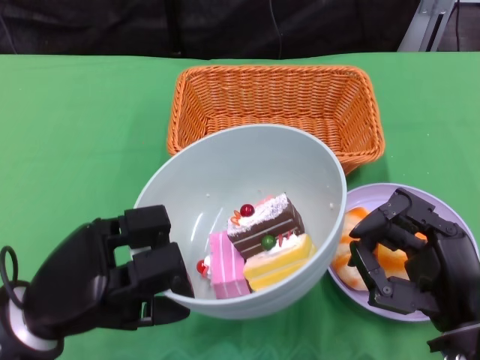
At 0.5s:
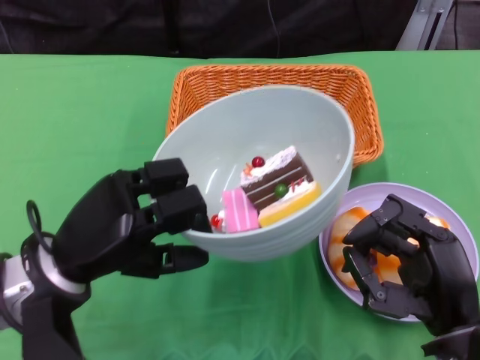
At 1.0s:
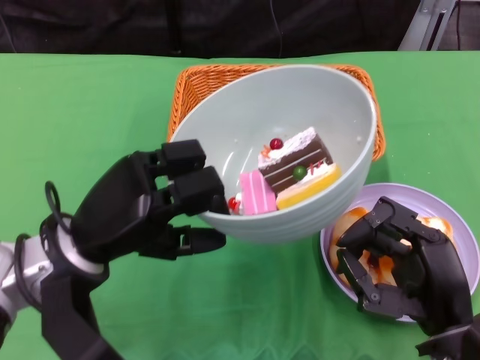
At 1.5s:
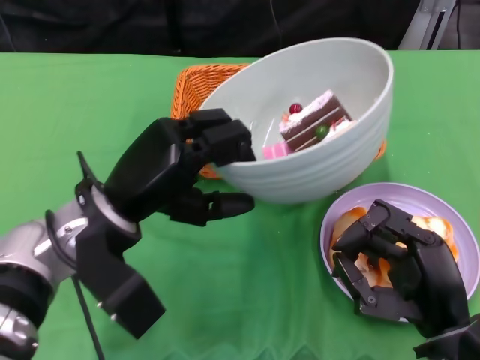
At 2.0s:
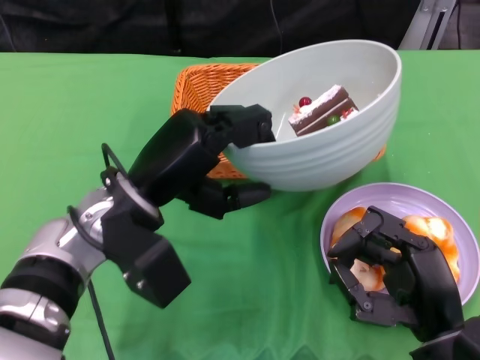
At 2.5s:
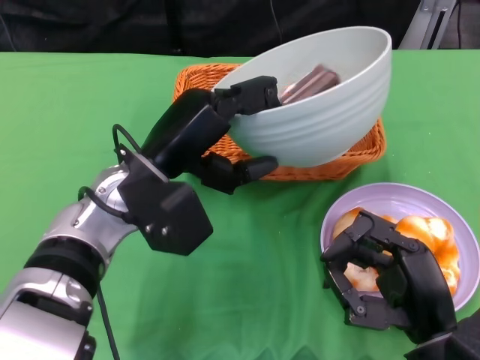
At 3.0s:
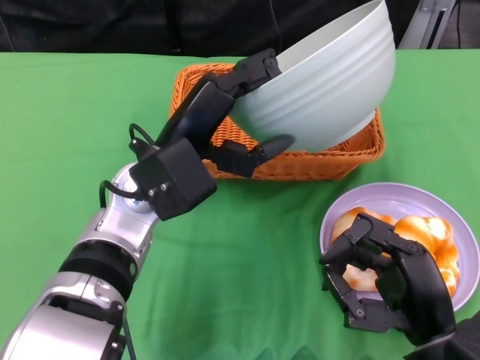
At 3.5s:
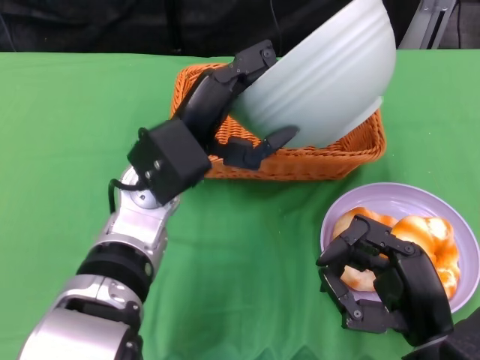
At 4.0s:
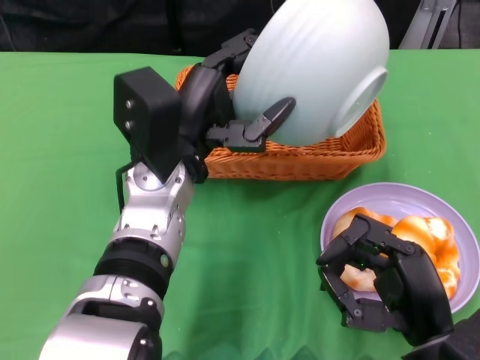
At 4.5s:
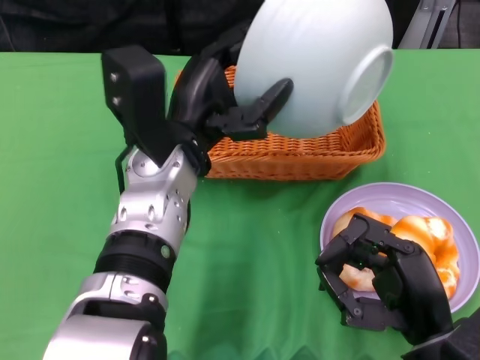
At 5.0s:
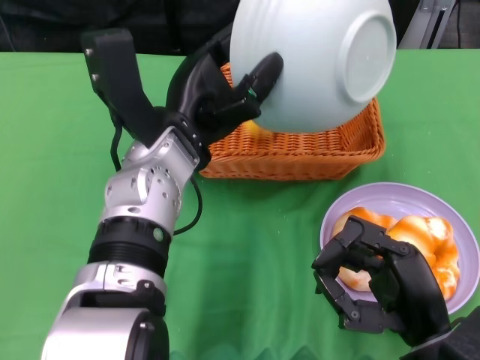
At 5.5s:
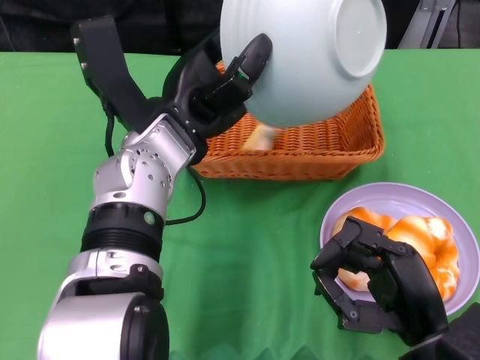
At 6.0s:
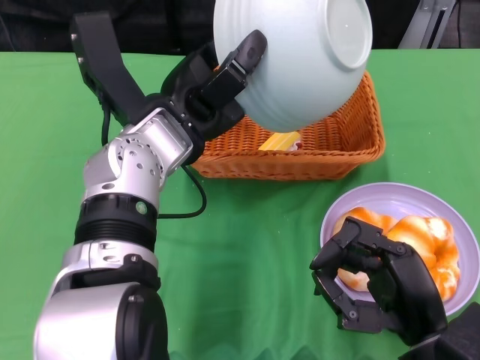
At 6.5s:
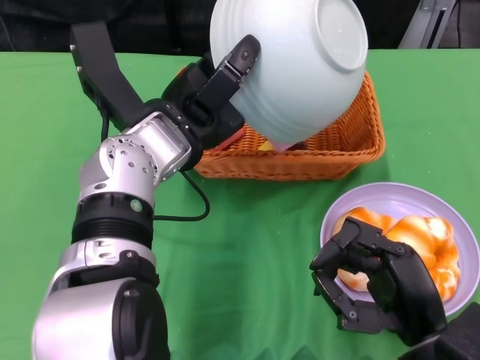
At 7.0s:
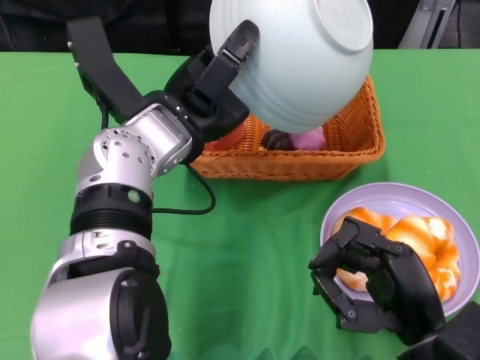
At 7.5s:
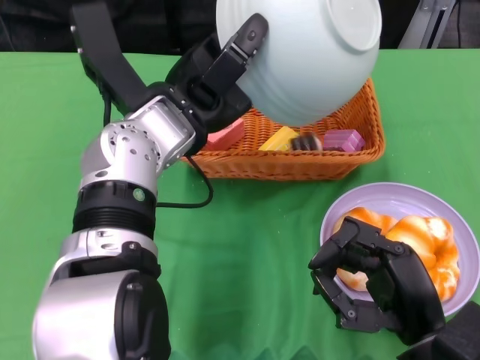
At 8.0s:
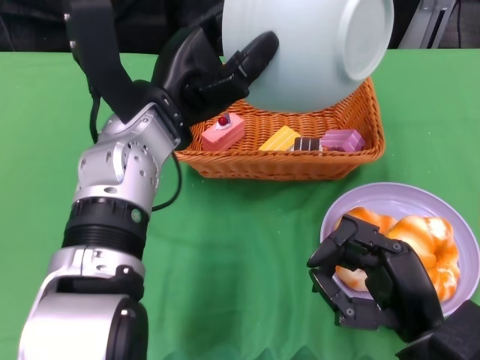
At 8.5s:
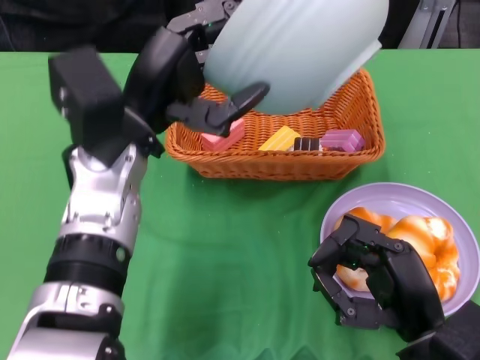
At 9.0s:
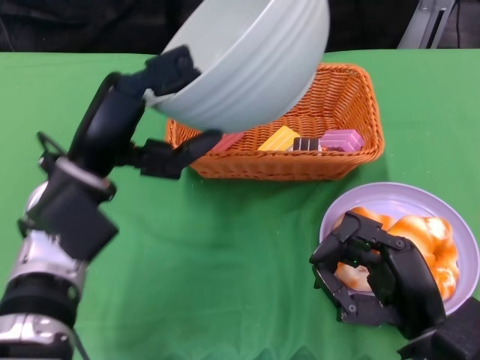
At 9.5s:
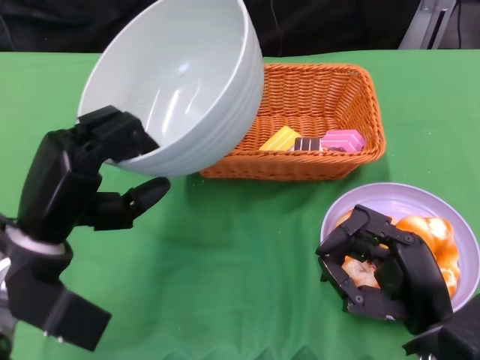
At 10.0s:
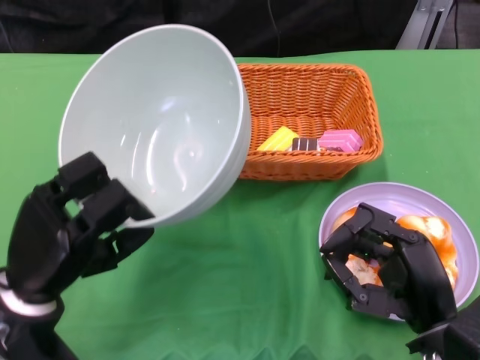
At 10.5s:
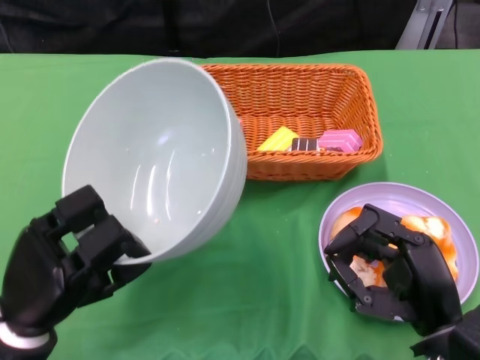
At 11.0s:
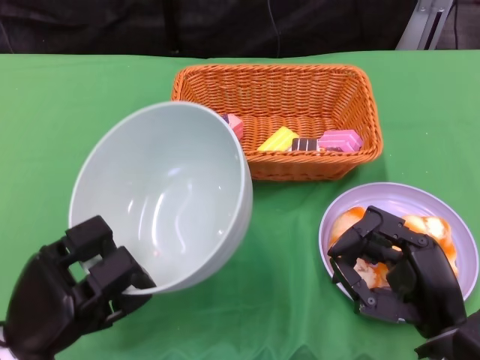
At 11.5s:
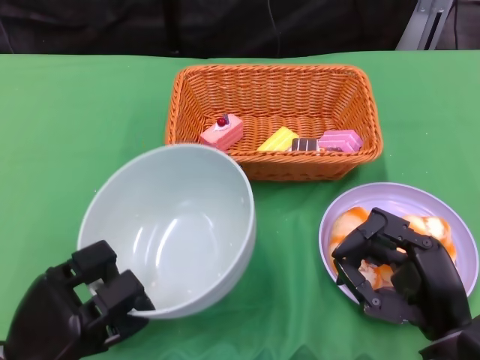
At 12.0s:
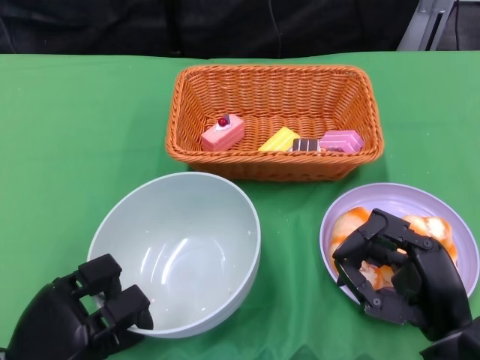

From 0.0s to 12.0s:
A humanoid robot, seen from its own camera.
Step, from 0.0s to 7.5s: Pour the cake into the basket with the left gripper.
From 0.0s to 2.0s: The left hand heads to the right and forward, covering approximately 10 cm.
From 2.0s to 4.0s: The left hand moves approximately 5 cm.
From 8.0s to 10.0s: The left hand moves downward, to the left and backward, some 20 cm.
From 10.0s to 12.0s: The left hand heads downward and backward, covering approximately 10 cm.

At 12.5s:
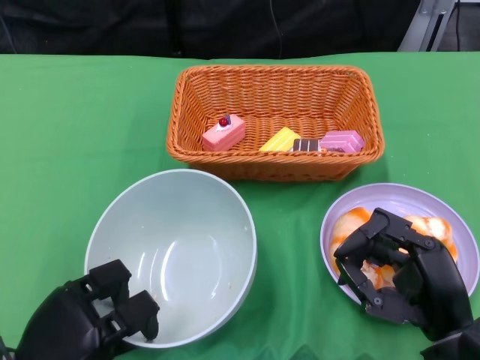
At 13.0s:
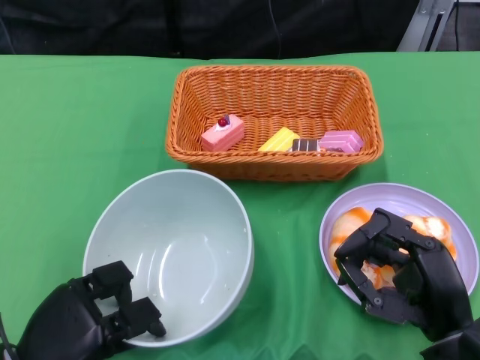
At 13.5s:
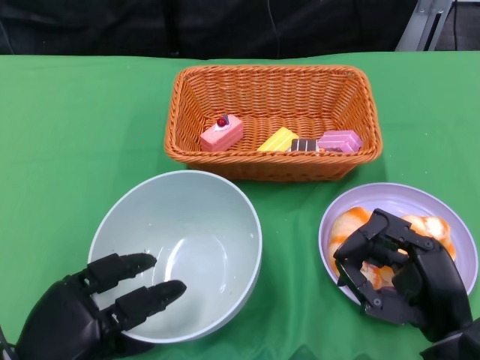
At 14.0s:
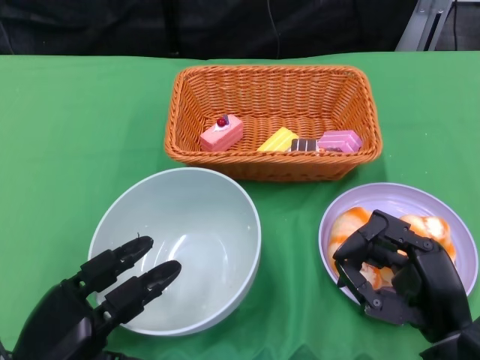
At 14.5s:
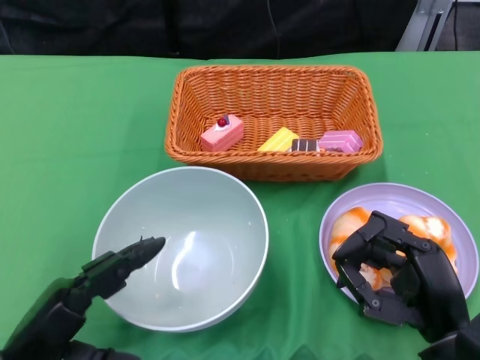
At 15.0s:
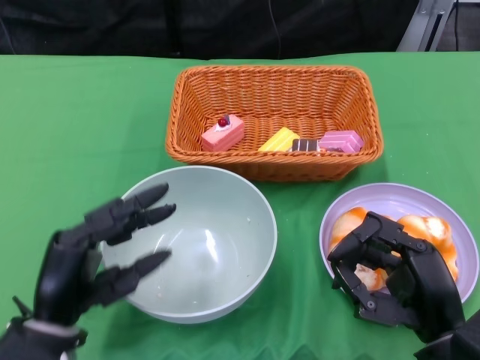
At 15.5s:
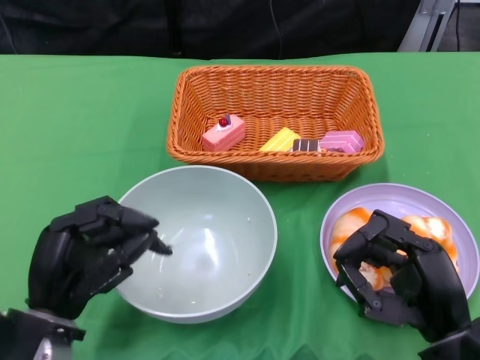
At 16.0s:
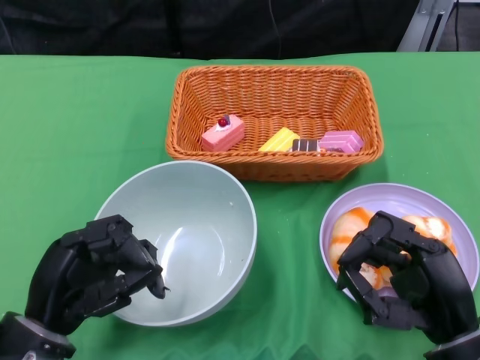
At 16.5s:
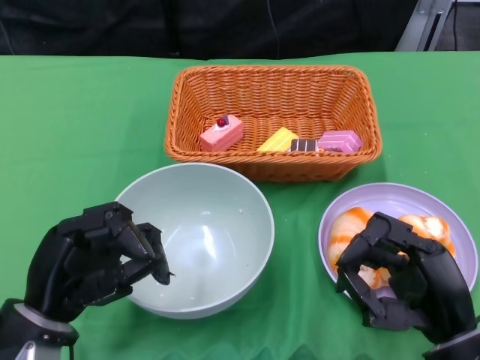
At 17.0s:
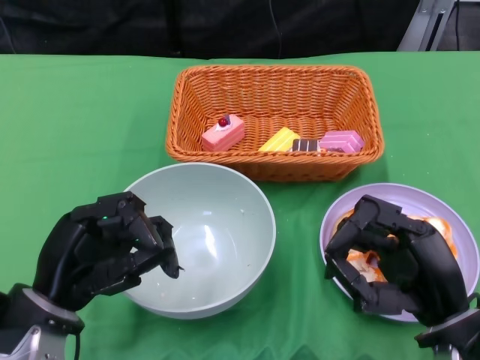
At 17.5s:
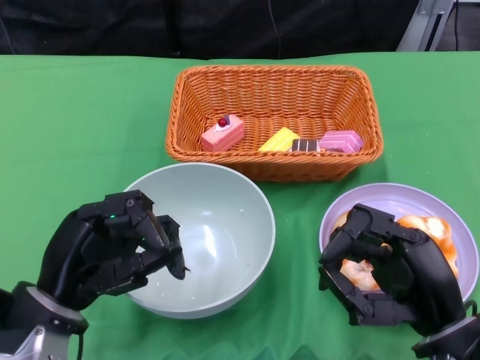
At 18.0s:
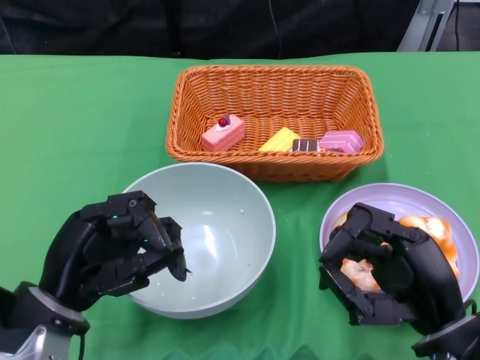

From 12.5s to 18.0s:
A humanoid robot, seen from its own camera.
Step, from 12.5s to 14.5s: Place the bowl on the table with the left gripper.
From 16.0s to 18.0s: The hands make only small movements.

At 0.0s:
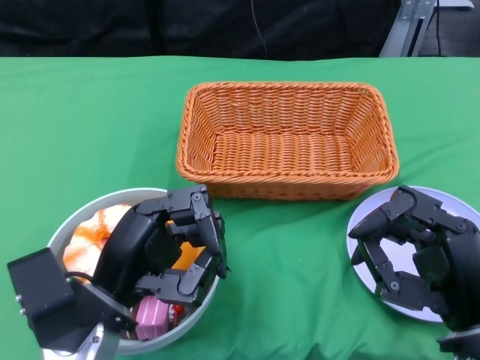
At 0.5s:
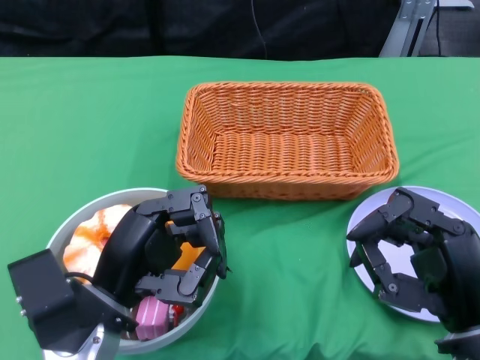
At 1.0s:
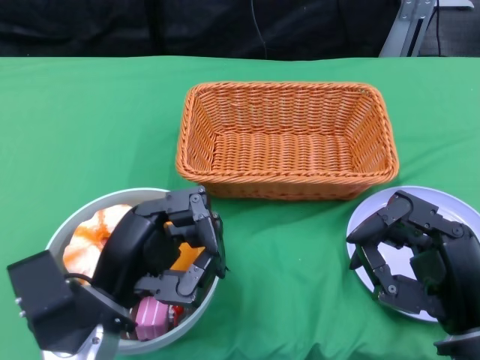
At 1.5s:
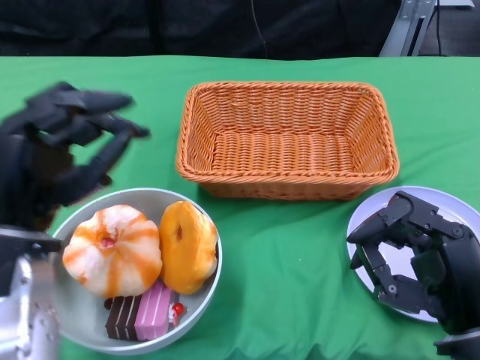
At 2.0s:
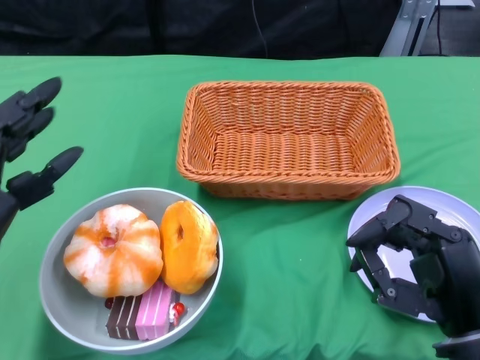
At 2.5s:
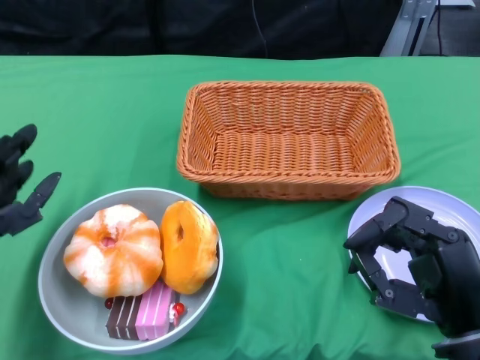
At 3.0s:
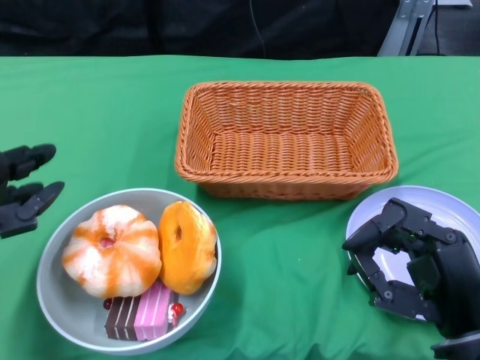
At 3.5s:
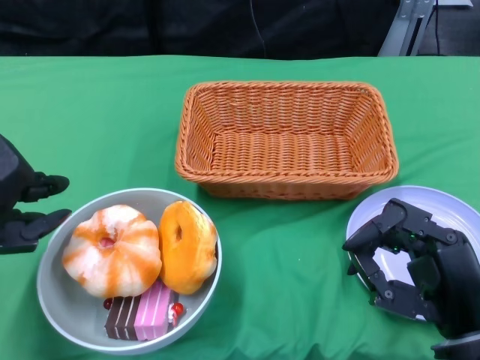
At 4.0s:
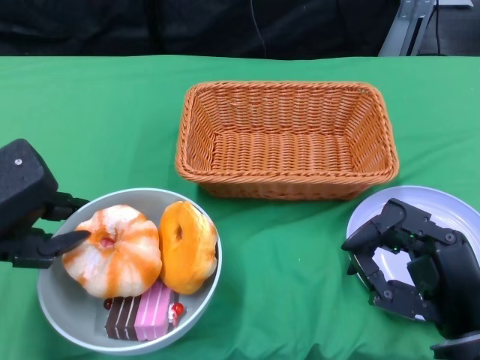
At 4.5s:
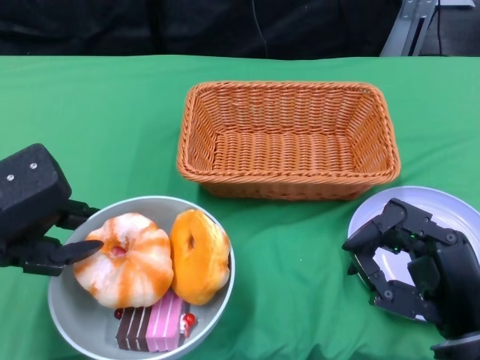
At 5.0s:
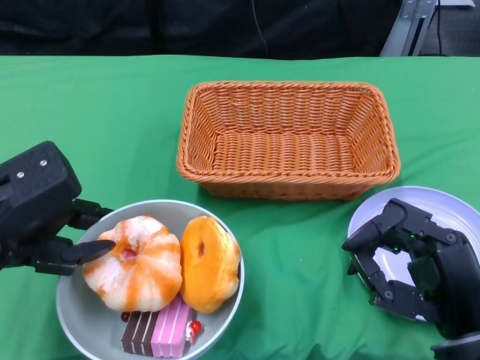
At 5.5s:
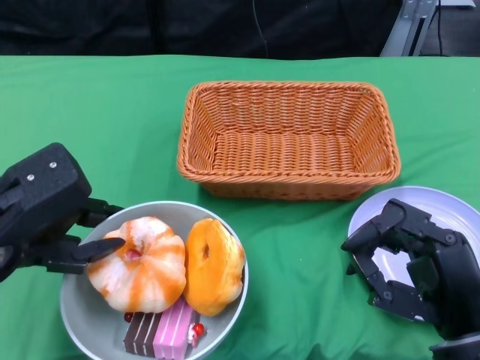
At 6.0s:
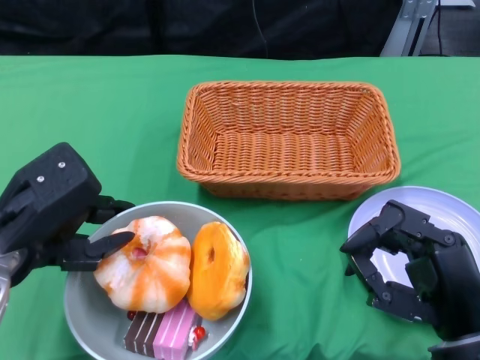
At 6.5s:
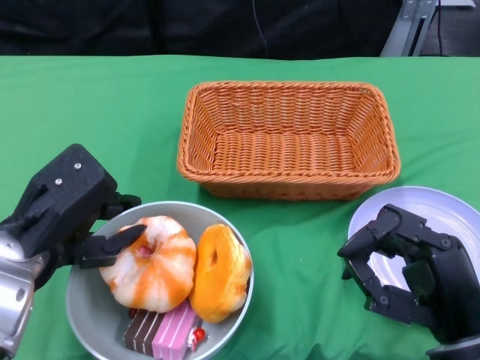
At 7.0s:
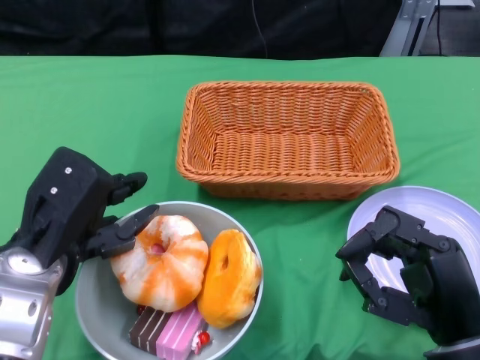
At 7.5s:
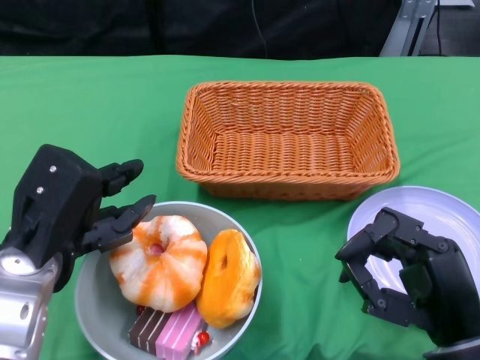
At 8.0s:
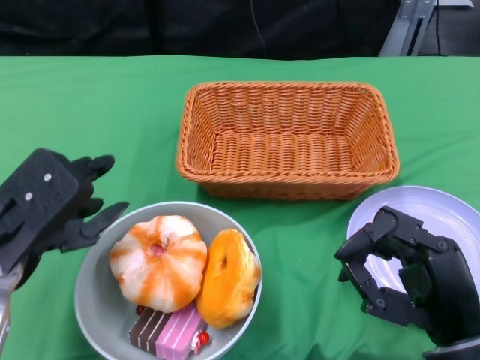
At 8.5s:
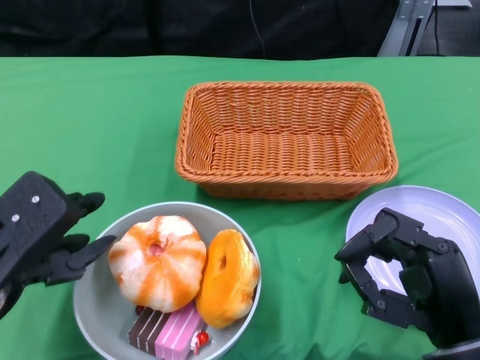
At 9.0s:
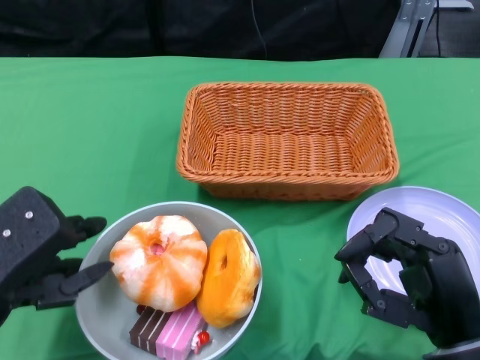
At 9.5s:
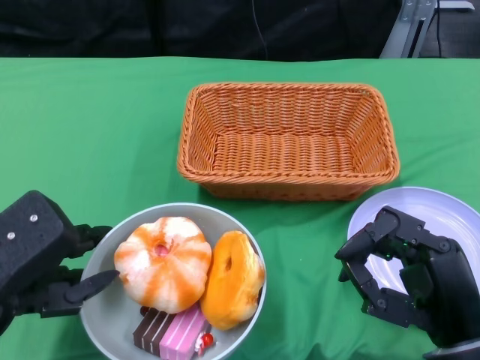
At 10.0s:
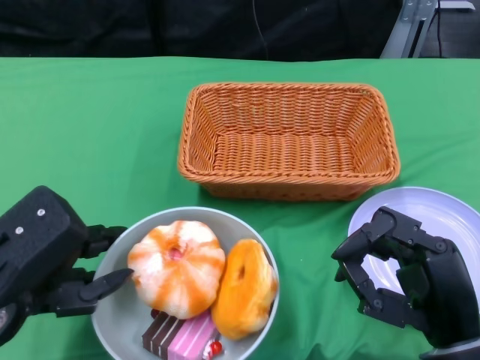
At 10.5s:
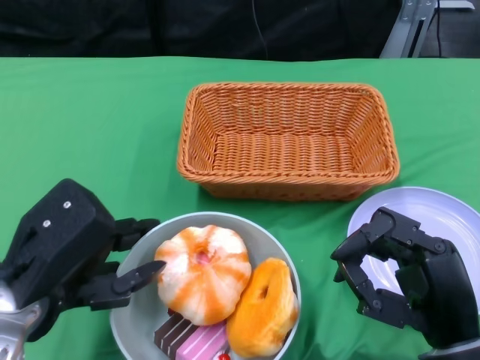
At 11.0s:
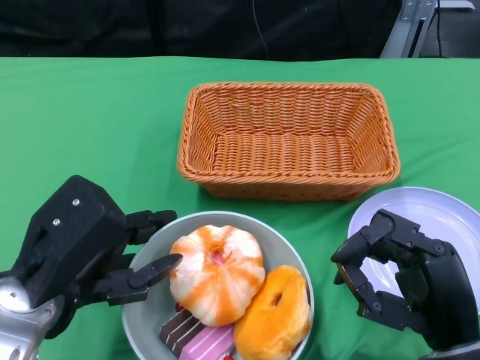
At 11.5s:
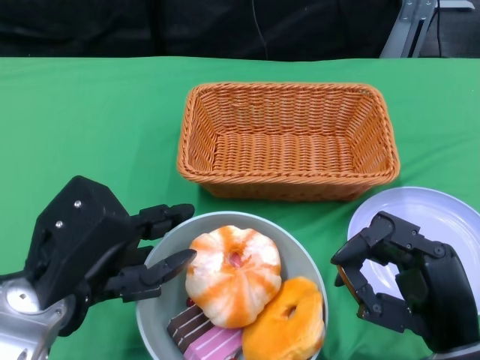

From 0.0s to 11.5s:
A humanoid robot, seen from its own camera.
Step, from 0.0s to 4.5s: Grasp the bowl with the left gripper.
From 7.5s to 9.5s: The left hand shifts by some 5 cm.
From 9.5s to 11.5s: The left hand moves to the right, approximately 5 cm.
